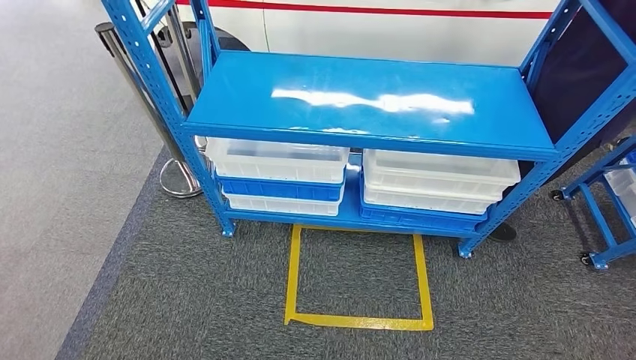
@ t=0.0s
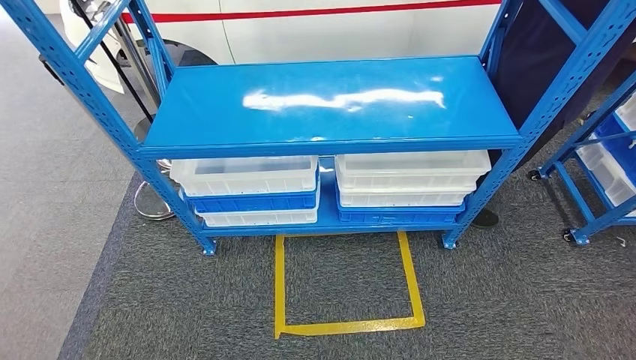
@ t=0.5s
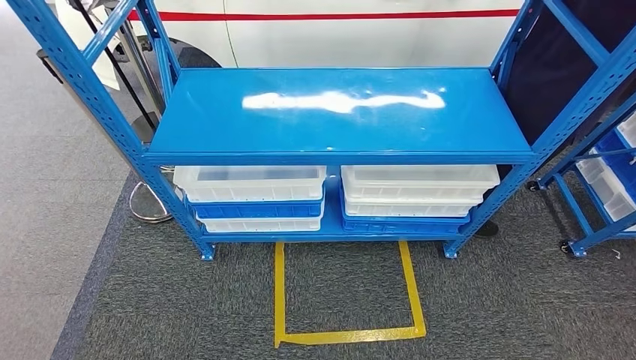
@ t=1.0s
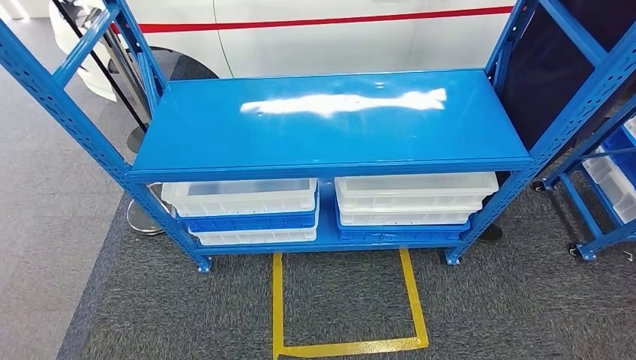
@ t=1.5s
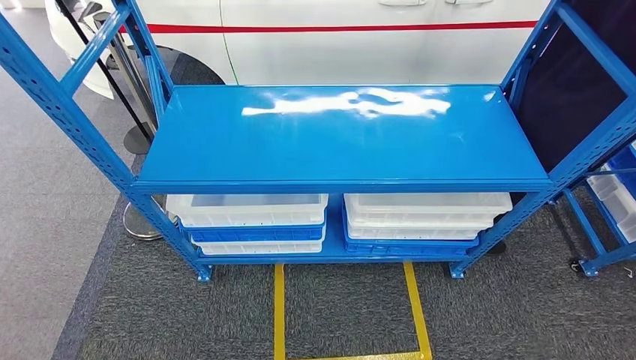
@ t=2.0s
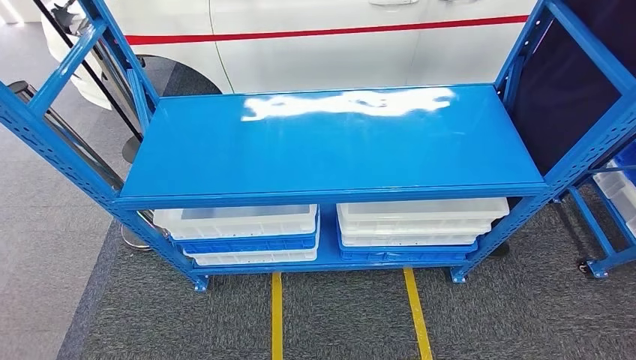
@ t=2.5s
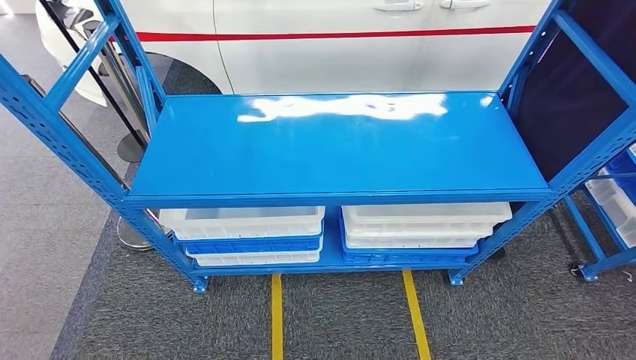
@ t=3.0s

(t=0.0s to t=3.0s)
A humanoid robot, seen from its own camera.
Step, t=0.0s - t=3.0s: Return to the initial position at the shelf.
